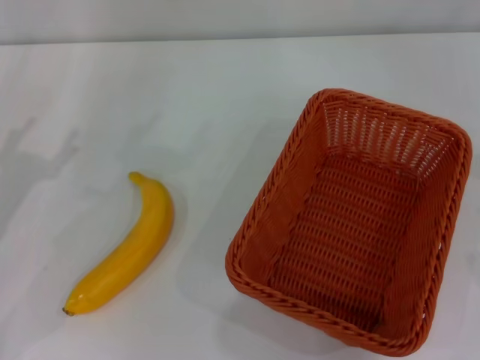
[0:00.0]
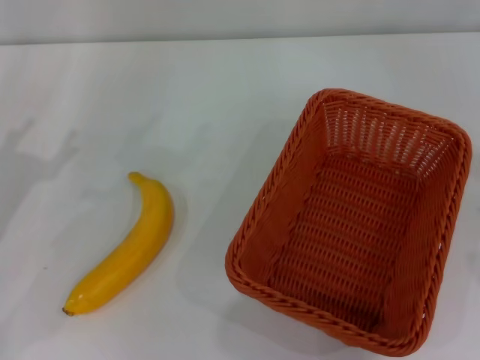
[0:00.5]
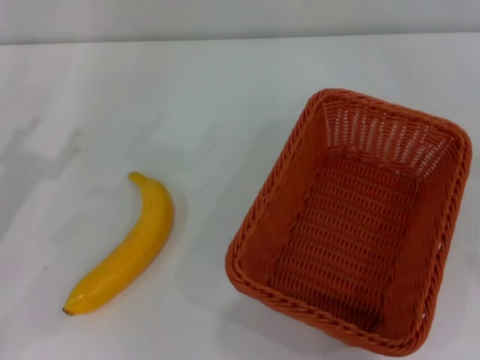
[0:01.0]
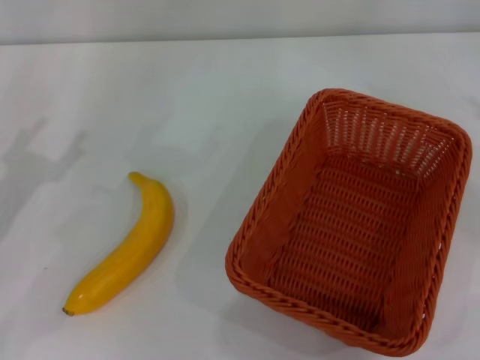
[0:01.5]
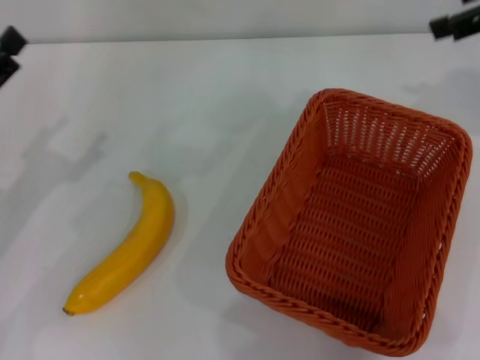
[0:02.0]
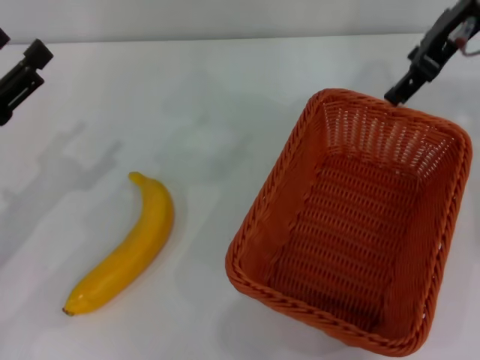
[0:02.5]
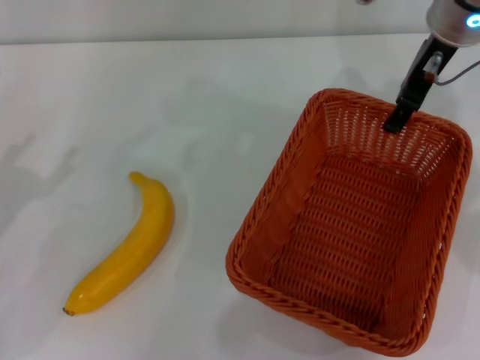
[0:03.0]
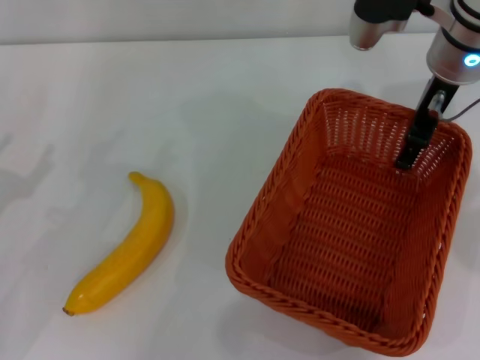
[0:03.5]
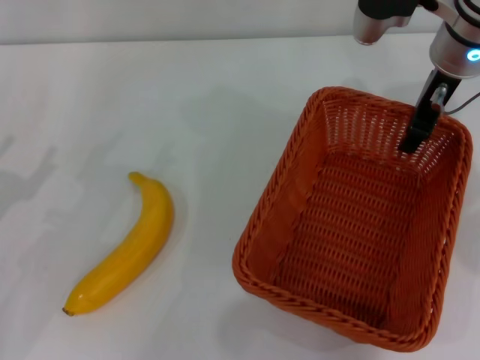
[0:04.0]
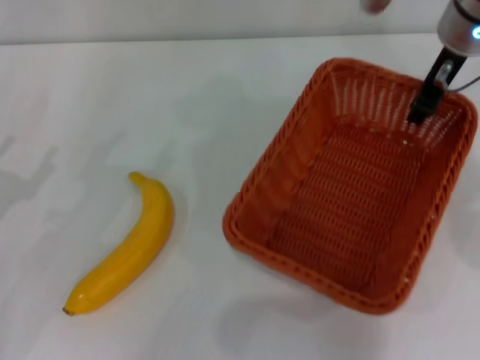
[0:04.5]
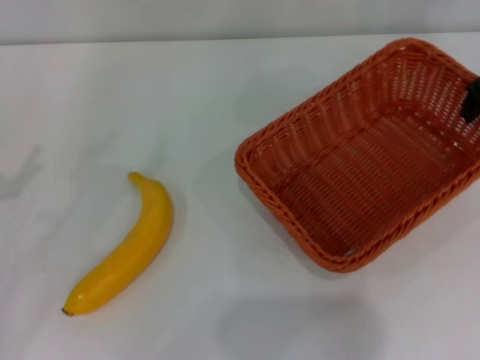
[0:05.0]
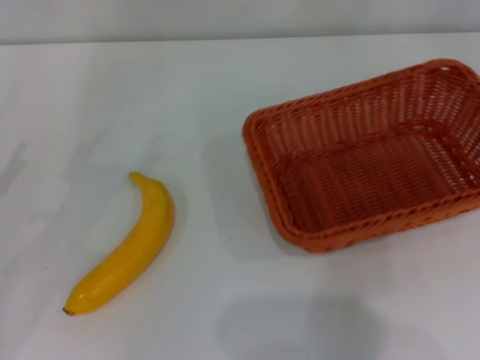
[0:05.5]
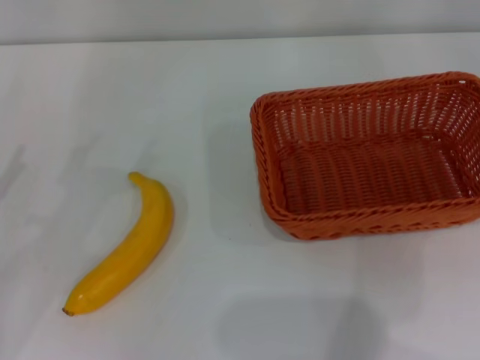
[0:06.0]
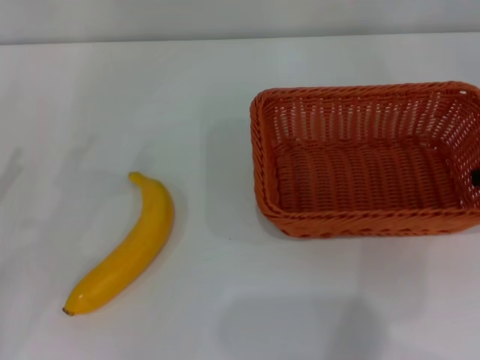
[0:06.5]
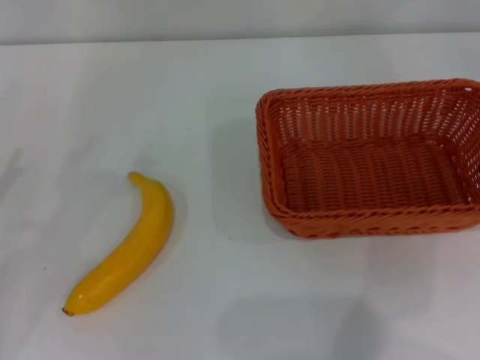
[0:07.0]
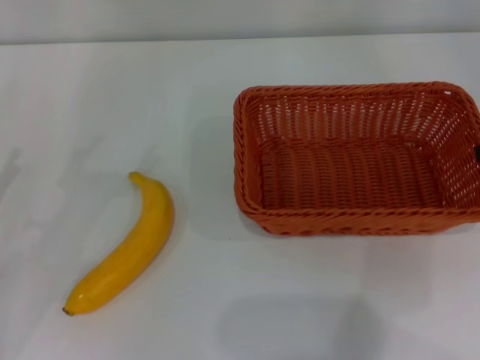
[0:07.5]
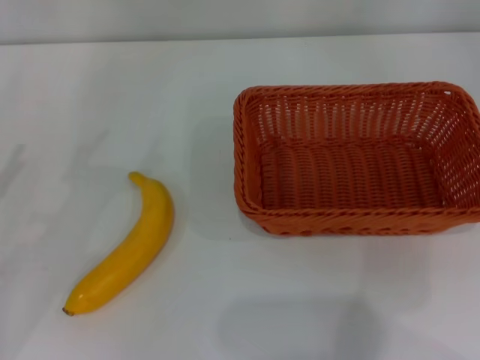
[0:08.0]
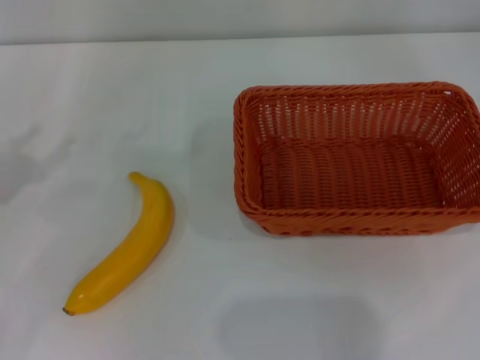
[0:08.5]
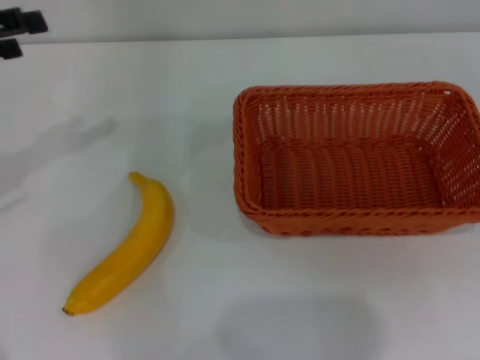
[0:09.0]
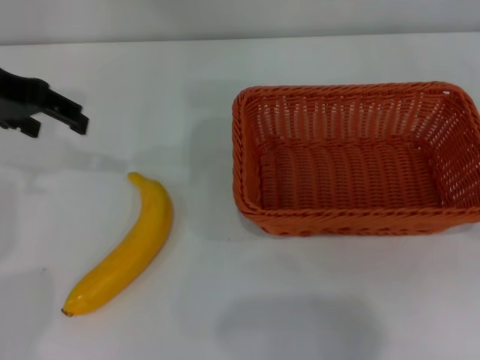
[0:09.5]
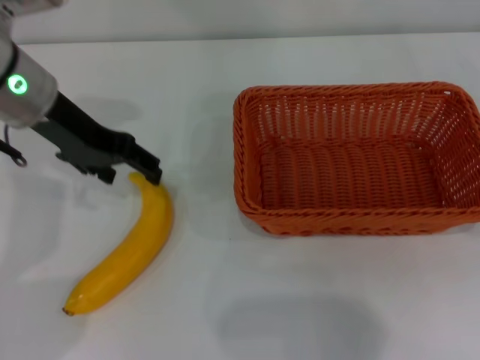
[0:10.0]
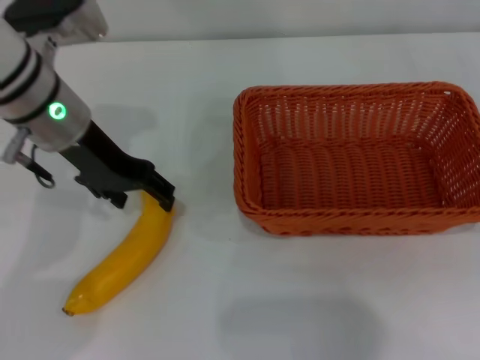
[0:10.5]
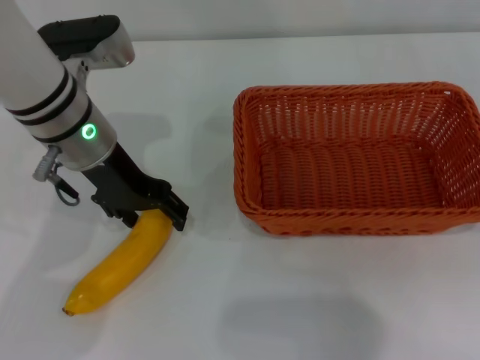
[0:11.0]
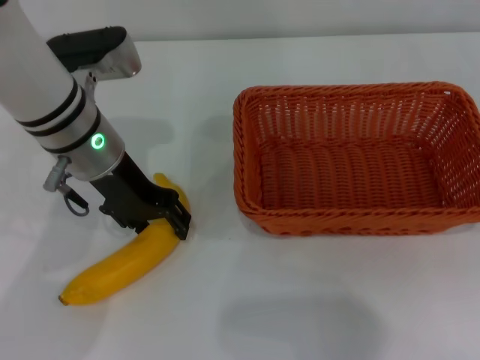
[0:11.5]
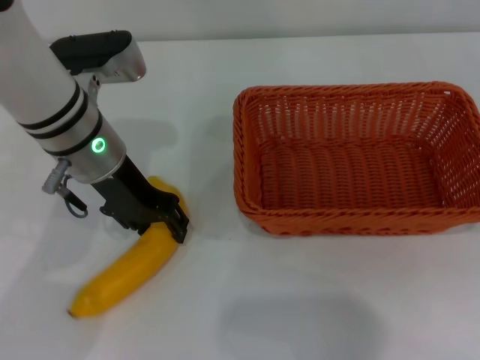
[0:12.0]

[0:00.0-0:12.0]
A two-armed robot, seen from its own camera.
Step, 0:00.0 to 0:04.5: Pick up the light basket with the right gripper.
Step, 0:05.0 to 0:07.0: Place the light basket in the center of view with the right gripper.
0:00.0 to 0:02.0: The right gripper is displaced upward, to the left and forward by approximately 30 cm.
0:02.0 to 0:04.0: The right gripper shifts approximately 15 cm to the left, downward and forward; the left gripper shifts by some 5 cm.
0:04.0 to 0:06.0: The right gripper moves to the right and backward, roughly 20 cm, and closes up.
0:06.0 to 0:08.0: The right gripper shifts by roughly 5 cm.
0:08.0 to 0:10.0: The left gripper moves to the right, forward and upward, roughly 25 cm.
0:10.0 to 0:12.0: The left gripper goes about 10 cm downward and to the right, and closes.

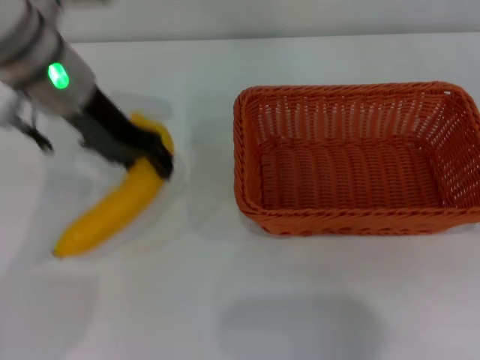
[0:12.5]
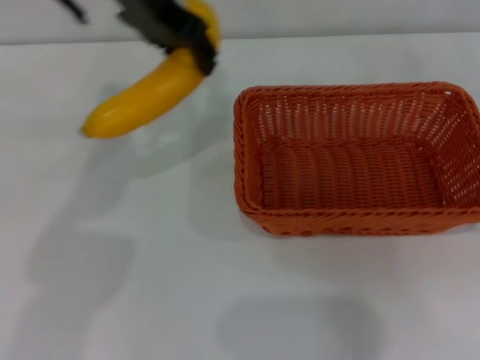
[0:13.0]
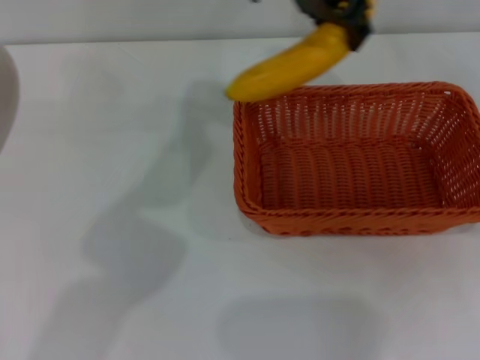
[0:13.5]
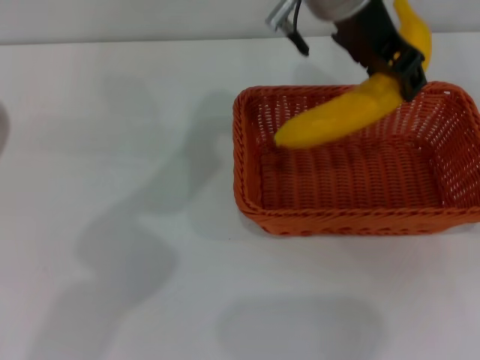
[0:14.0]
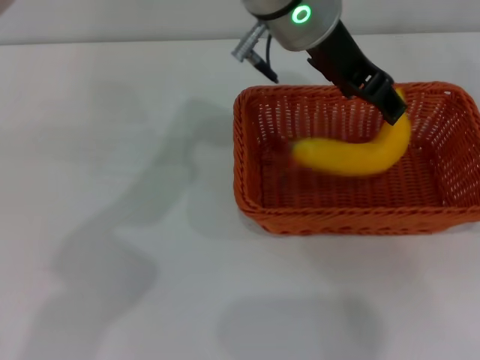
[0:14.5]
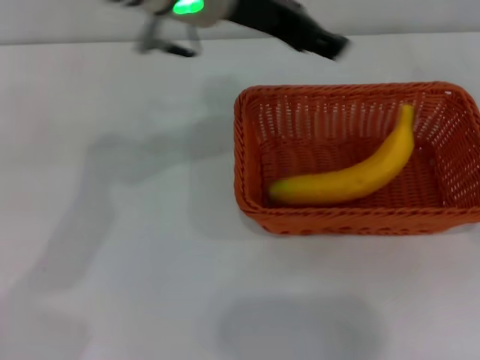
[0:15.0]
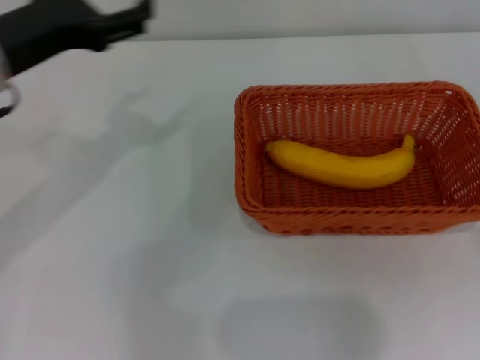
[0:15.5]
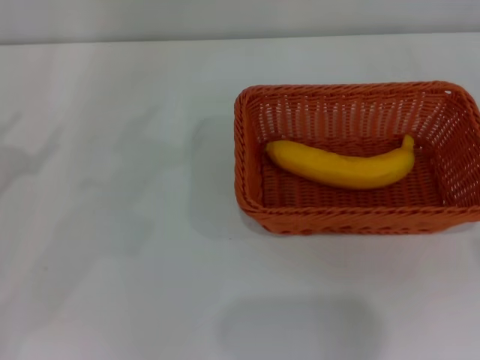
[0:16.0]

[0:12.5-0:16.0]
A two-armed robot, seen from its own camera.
Step, 0:12.5 to 0:14.5: Place the banana into the light basket with the left gripper.
0:12.5 to 0:14.5: The left gripper goes roughly 20 cm to the right.
0:14.5 to 0:16.0: The right gripper moves some 5 cm, while the left gripper travels to the left by roughly 40 cm, and opens up.

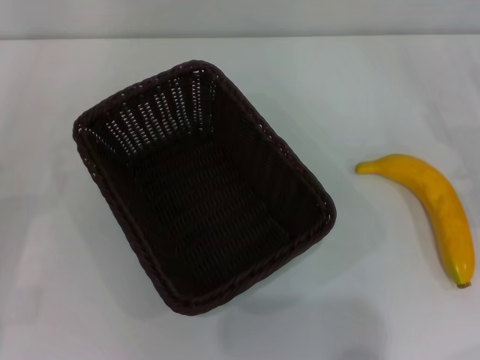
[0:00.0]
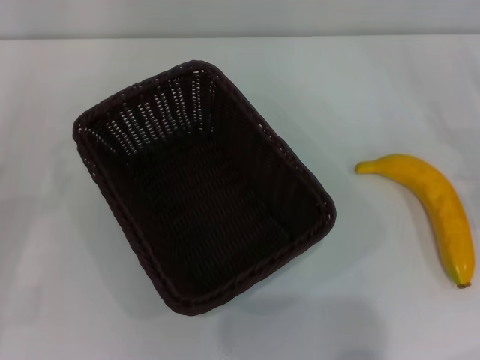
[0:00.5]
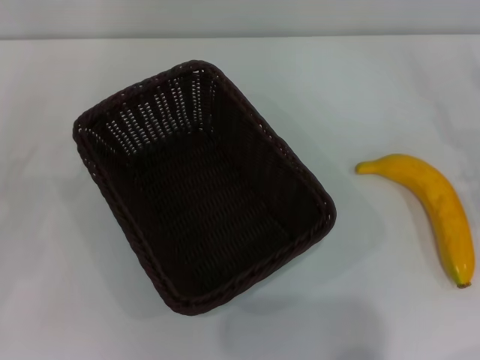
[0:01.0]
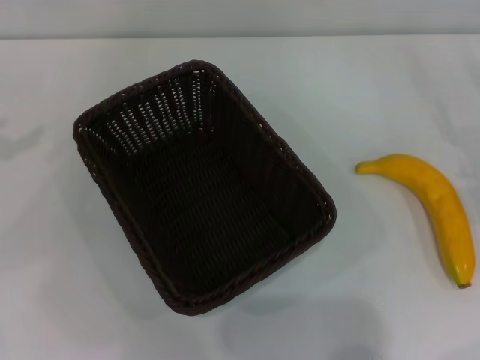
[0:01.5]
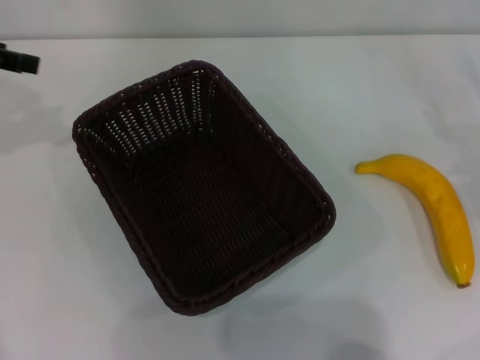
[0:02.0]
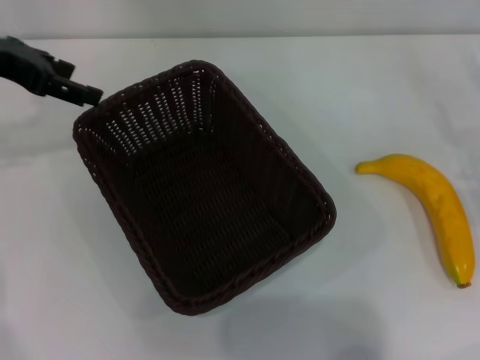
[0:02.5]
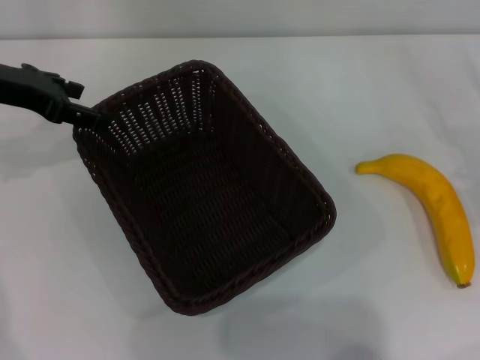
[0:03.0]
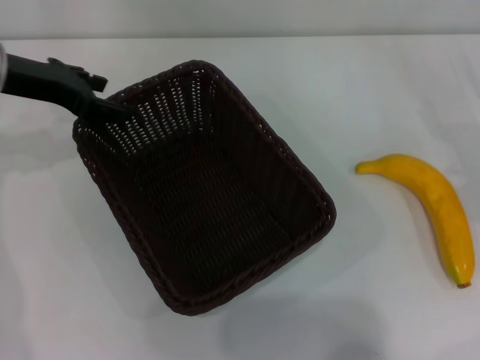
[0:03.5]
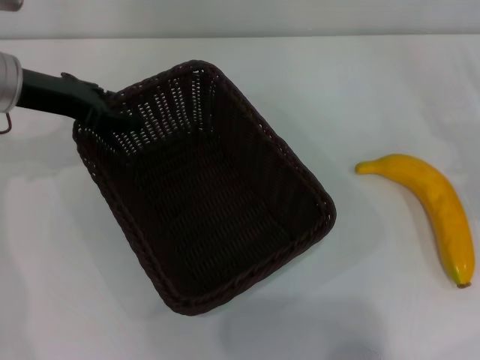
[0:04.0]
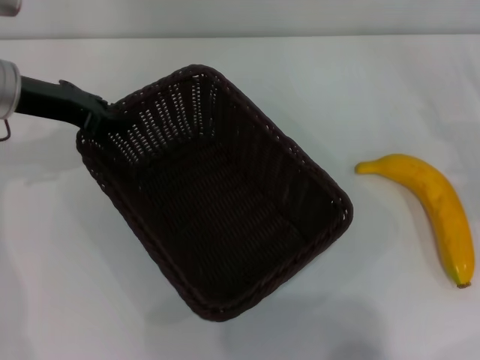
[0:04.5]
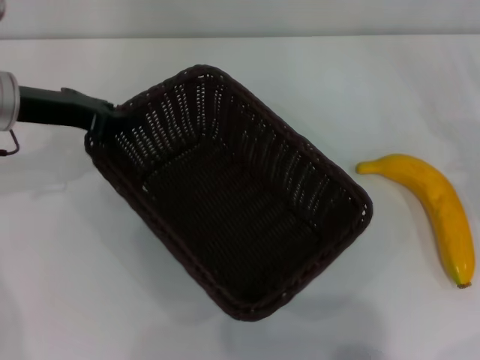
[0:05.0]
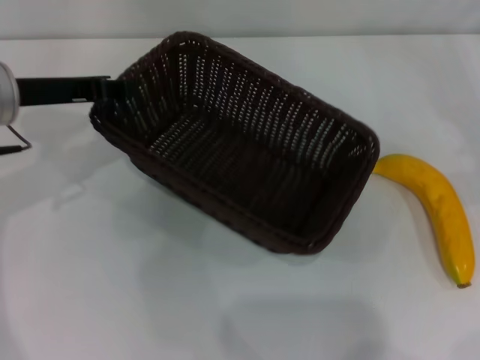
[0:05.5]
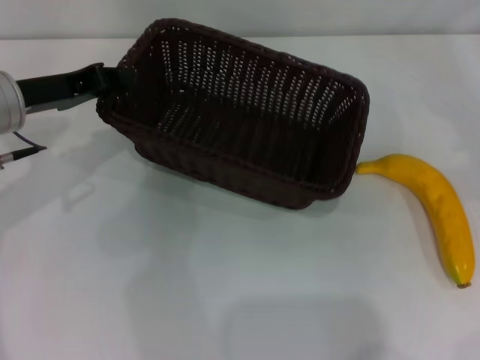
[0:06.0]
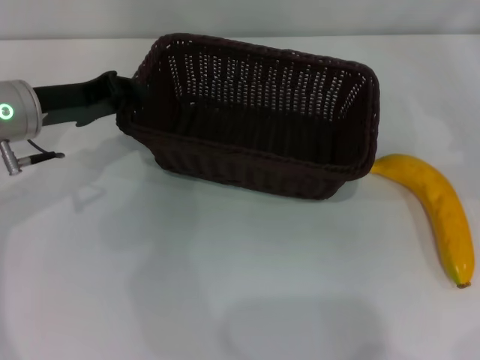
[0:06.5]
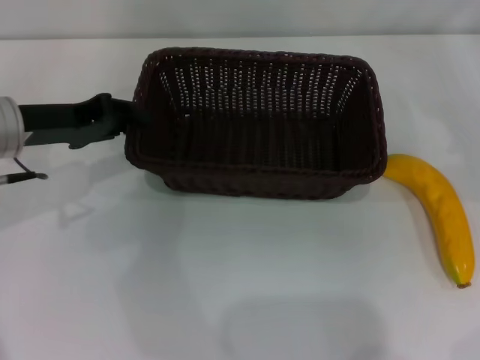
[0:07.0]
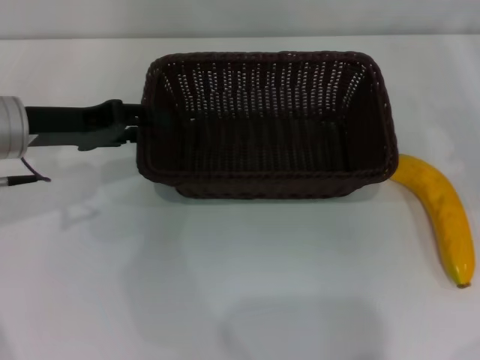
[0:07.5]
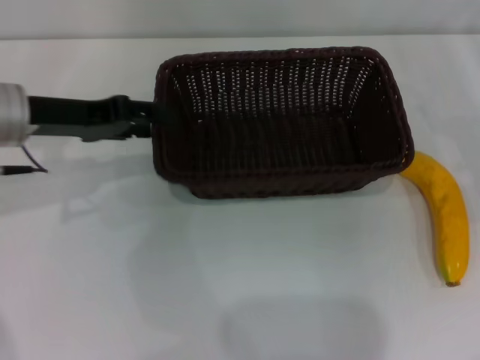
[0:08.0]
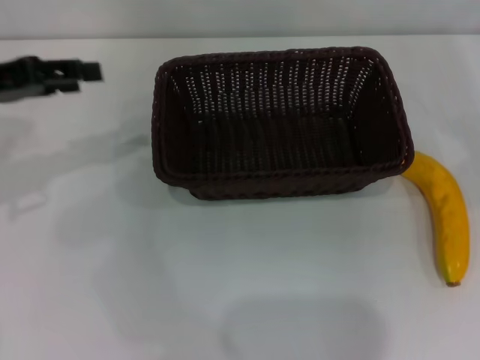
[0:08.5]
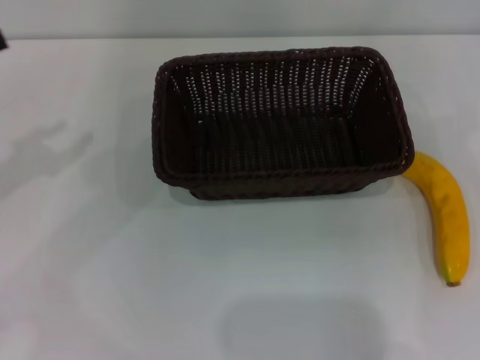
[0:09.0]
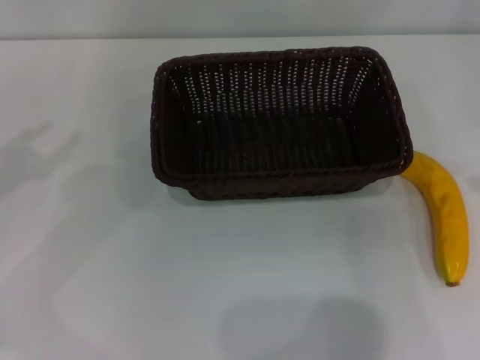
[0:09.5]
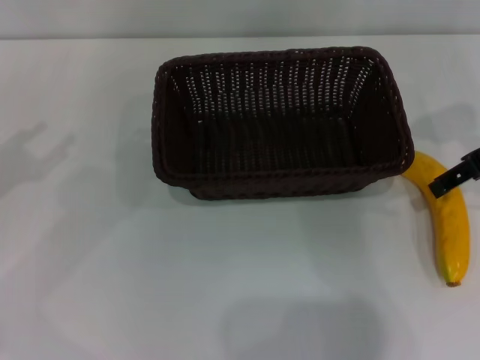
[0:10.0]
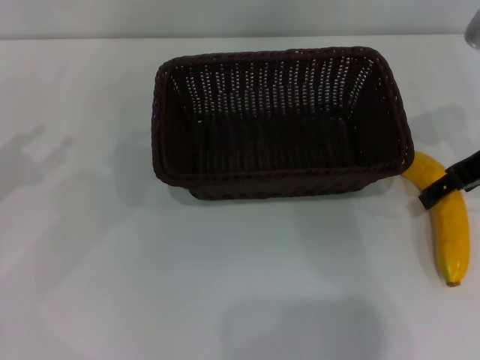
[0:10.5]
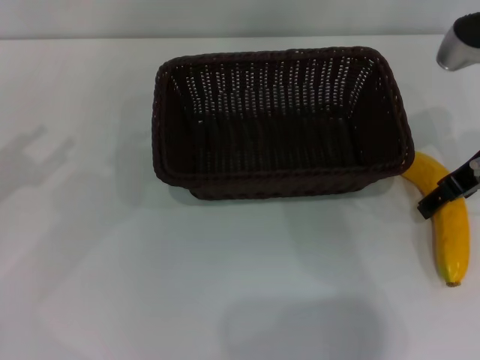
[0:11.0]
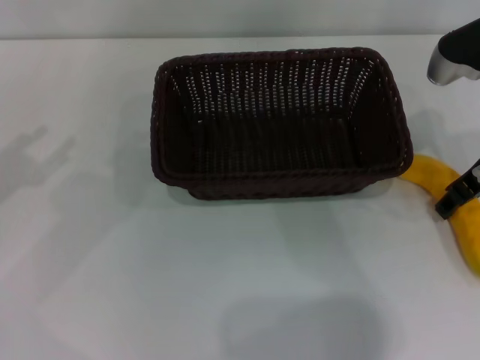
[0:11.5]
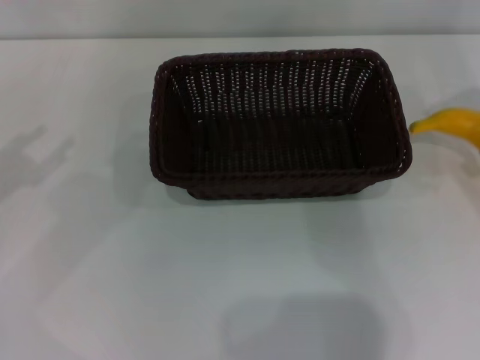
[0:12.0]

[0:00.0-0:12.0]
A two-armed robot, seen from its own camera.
Step, 0:00.0 to 0:05.0: Pick up the dark basket with the left gripper.
Step, 0:05.5 to 0:08.0: Place the dark basket in the center of view with the left gripper.
0:00.0 to 0:02.0: The left gripper is displaced upward and forward by some 25 cm.
0:02.0 to 0:04.0: The left gripper shifts about 10 cm downward and to the right.
0:04.0 to 0:06.0: The left gripper closes up. The right gripper heads upward, covering about 5 cm.
0:06.0 to 0:08.0: The left gripper opens its fingers.
0:08.0 to 0:10.0: The left gripper moves to the left and backward, roughly 15 cm; the right gripper moves to the left and upward, about 15 cm.
0:10.0 to 0:12.0: The right gripper closes its fingers.
